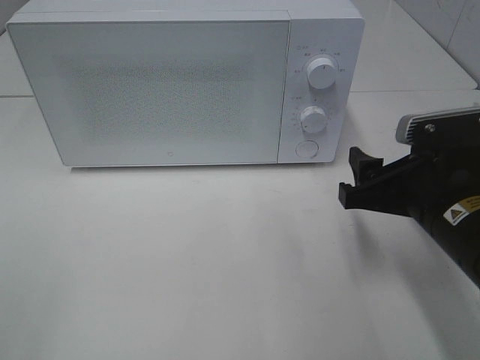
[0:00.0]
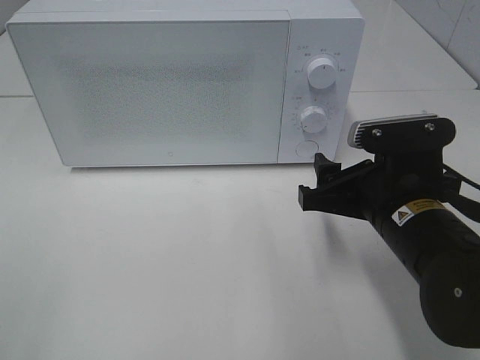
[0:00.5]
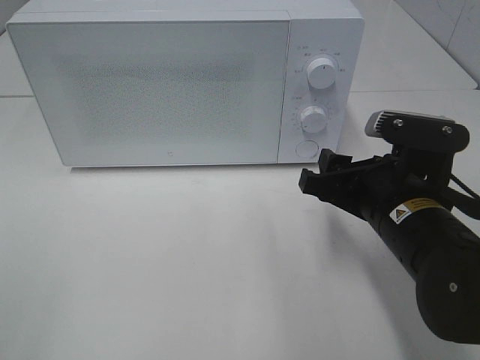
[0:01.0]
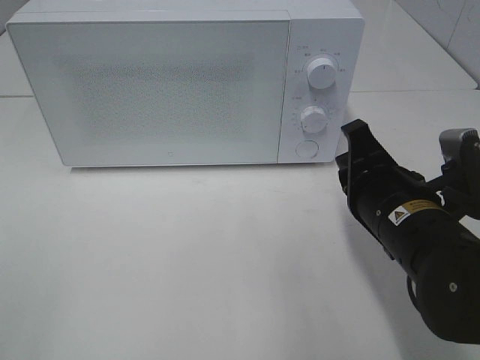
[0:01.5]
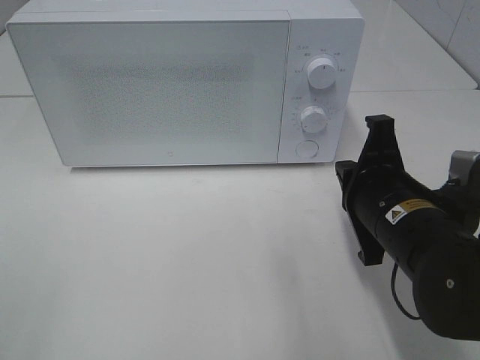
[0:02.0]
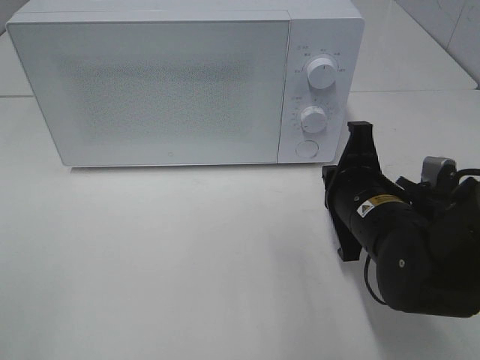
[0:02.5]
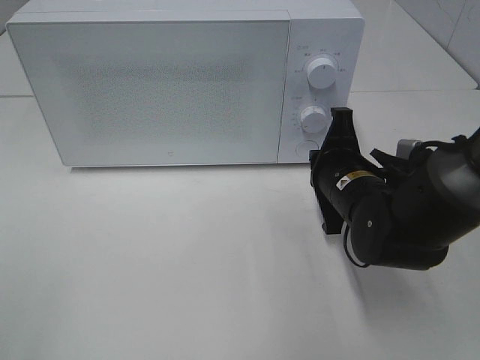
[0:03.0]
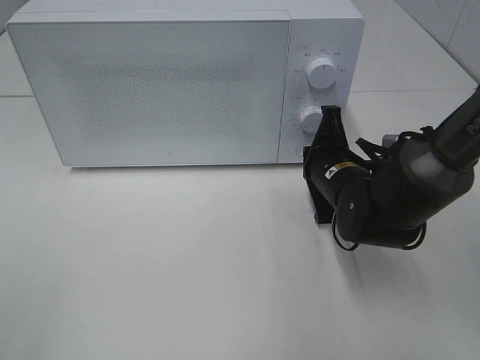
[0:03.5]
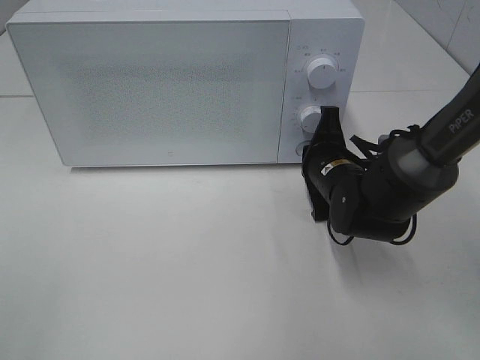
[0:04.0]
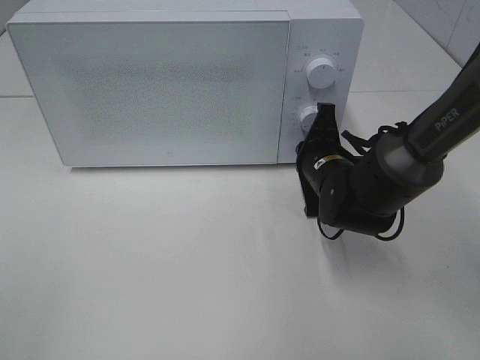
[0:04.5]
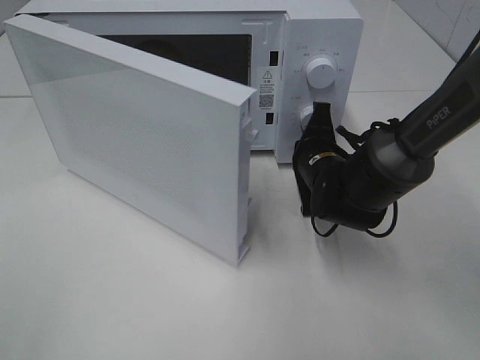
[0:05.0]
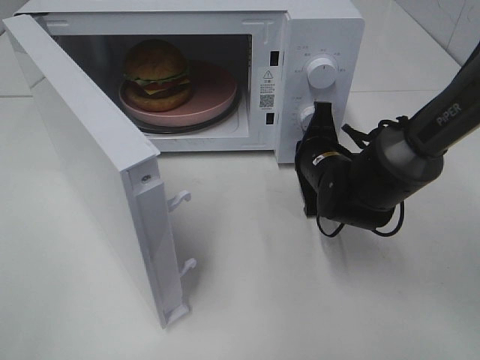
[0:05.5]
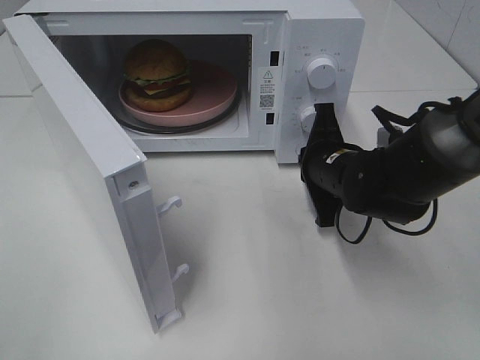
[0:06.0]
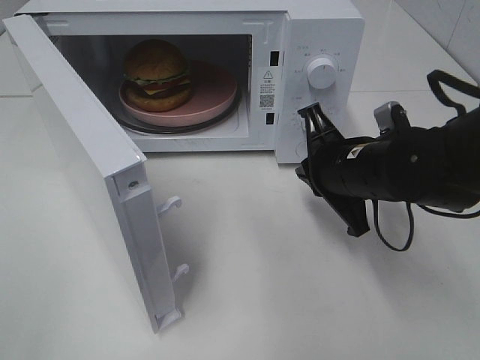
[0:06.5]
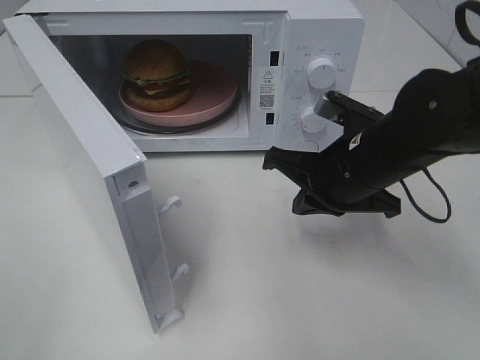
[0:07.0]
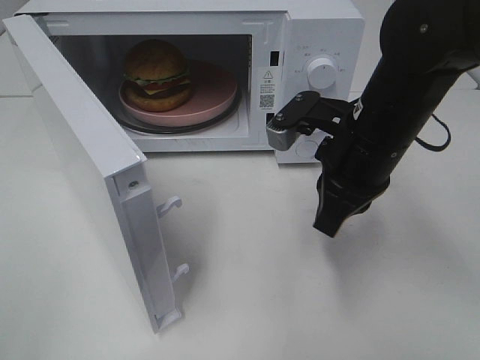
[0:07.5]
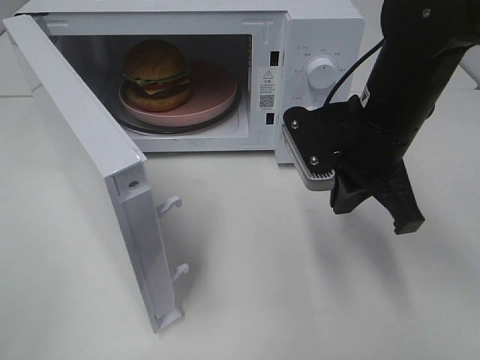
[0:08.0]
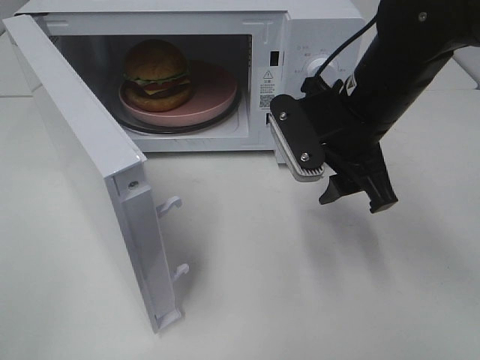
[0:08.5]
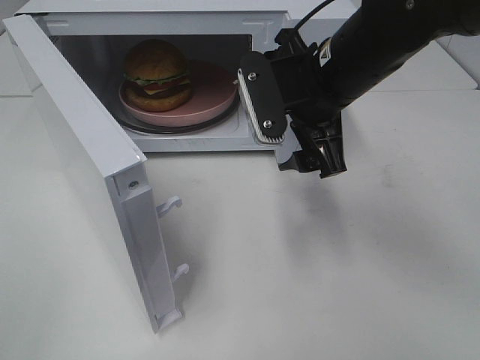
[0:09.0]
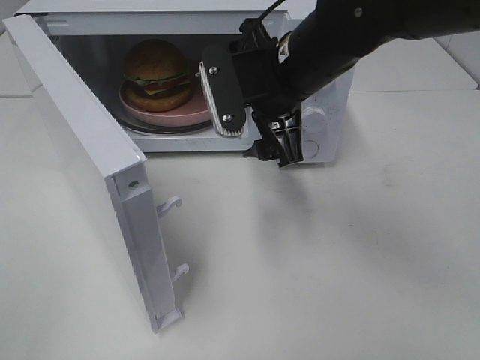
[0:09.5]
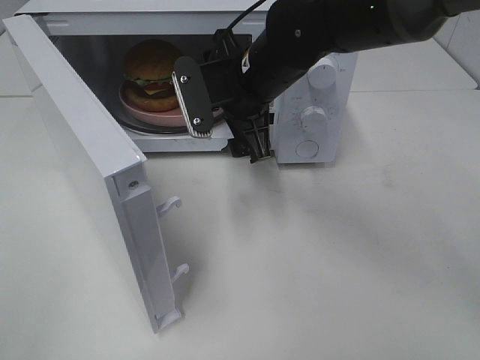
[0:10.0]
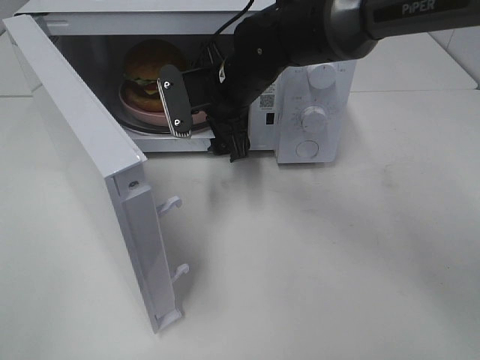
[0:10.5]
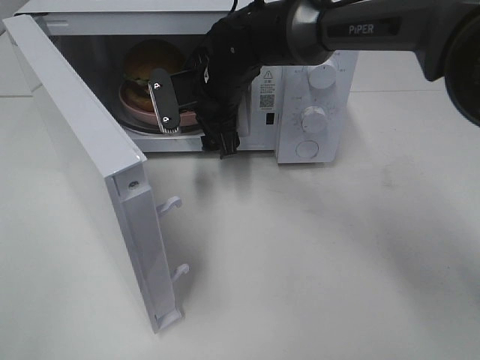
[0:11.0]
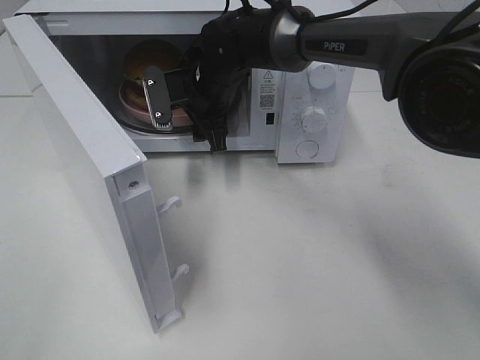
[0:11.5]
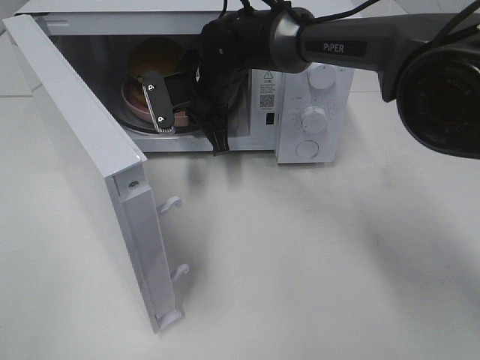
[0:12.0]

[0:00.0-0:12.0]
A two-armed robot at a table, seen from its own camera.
Task of the whole recording: Heat the burger.
Step, 0.0 to 5.5 s: Right hand: press the switch.
0.0 to 2.0 s: The right gripper closes up.
2.0 to 4.0 s: The right gripper goes roughly 15 cm forward and downward.
6.0 to 8.0 s: The right gripper moves upward, about 10 cm.
8.0 to 10.0 s: The right gripper shifts about 15 cm to the left and forward, and opens up.
10.0 to 12.0 s: The right gripper shifts about 10 cm forward, downward and to the left, and closes up.

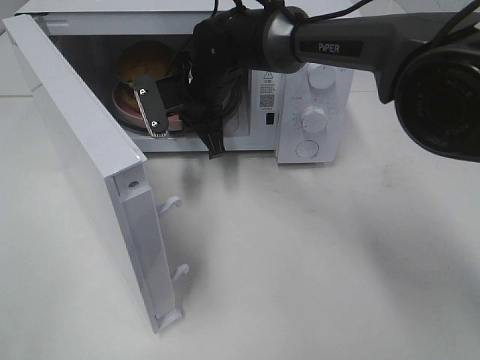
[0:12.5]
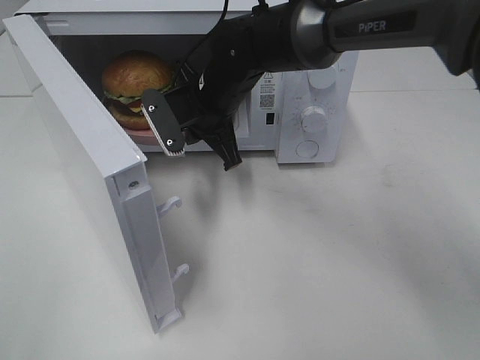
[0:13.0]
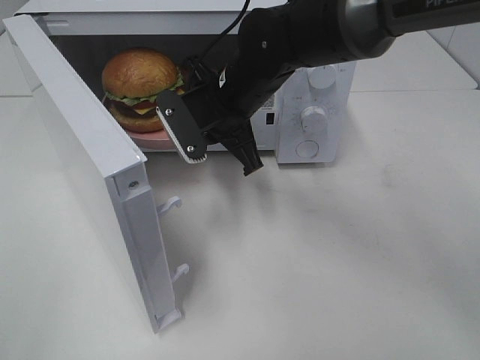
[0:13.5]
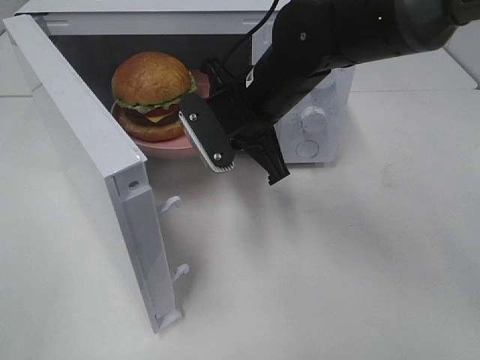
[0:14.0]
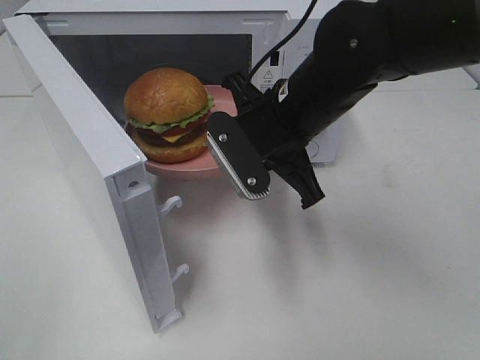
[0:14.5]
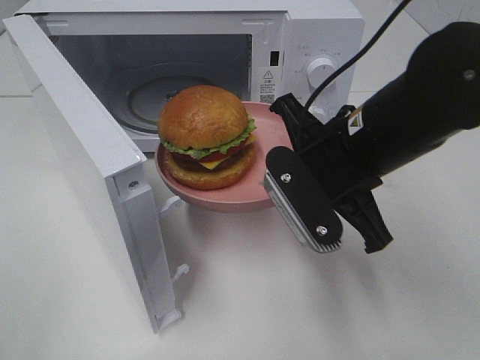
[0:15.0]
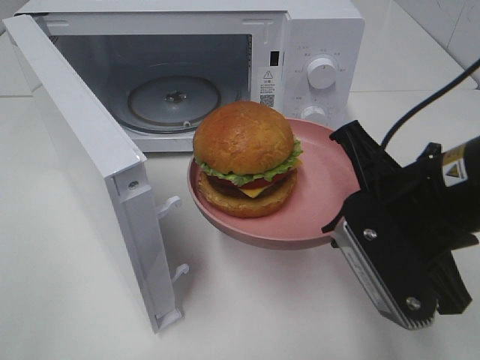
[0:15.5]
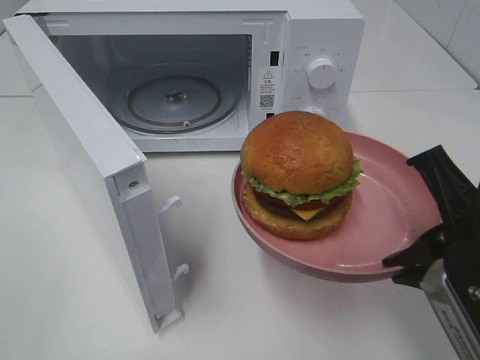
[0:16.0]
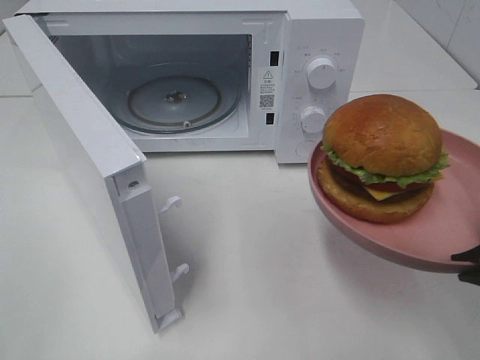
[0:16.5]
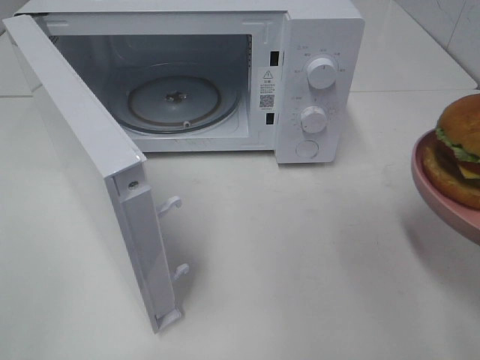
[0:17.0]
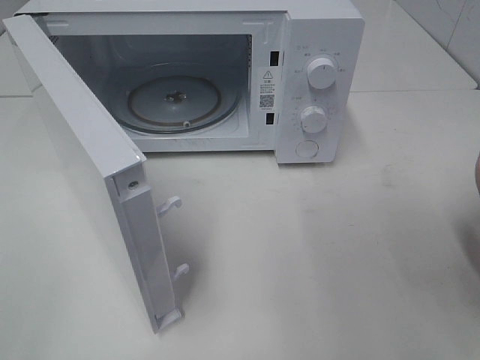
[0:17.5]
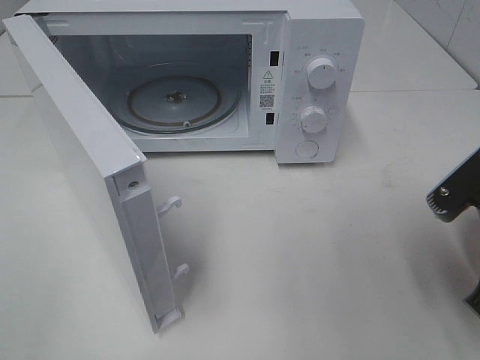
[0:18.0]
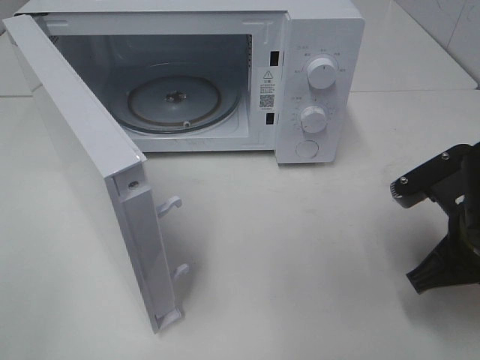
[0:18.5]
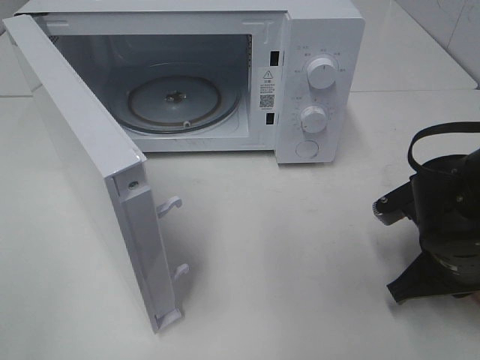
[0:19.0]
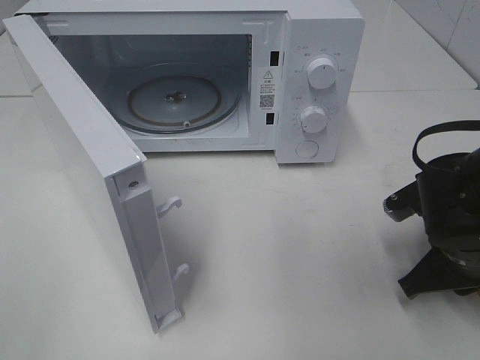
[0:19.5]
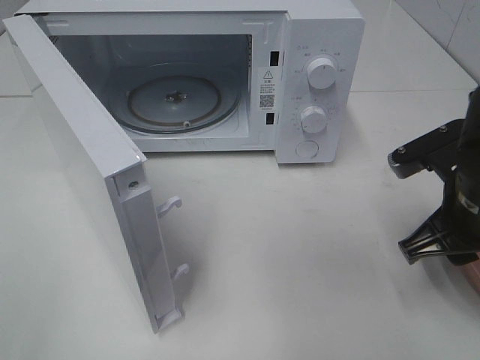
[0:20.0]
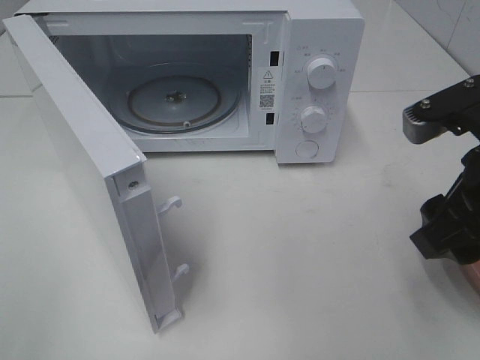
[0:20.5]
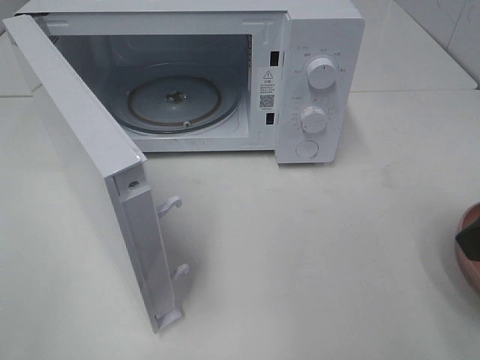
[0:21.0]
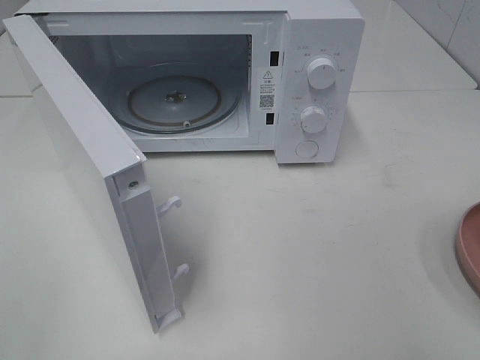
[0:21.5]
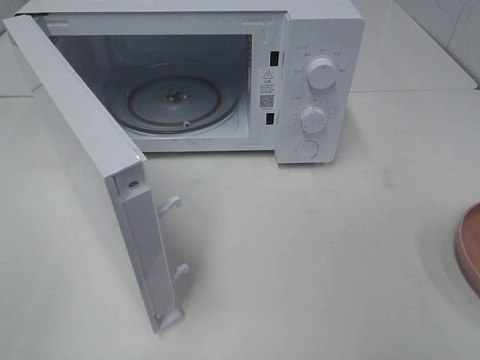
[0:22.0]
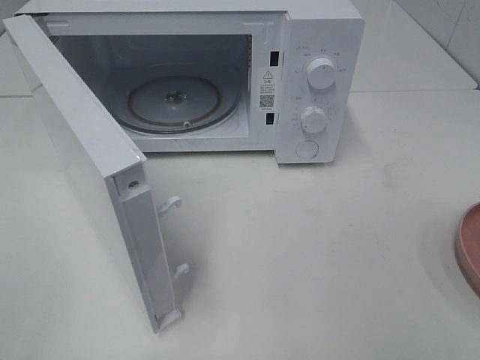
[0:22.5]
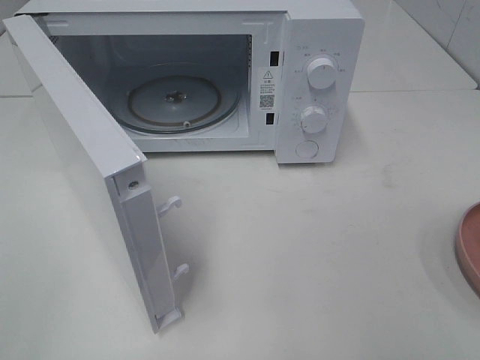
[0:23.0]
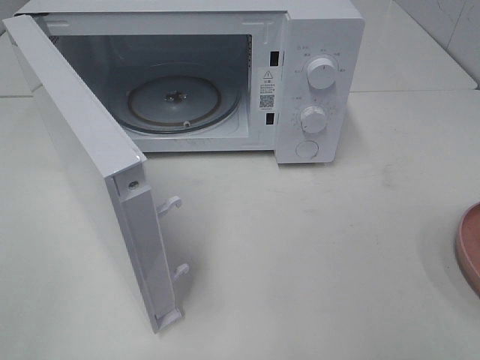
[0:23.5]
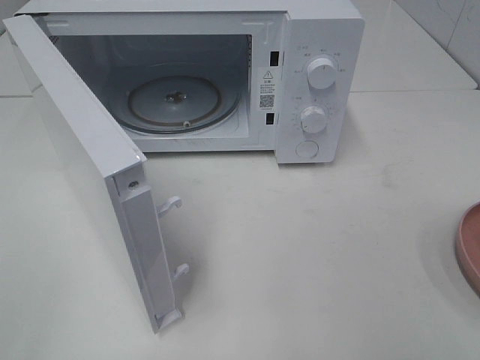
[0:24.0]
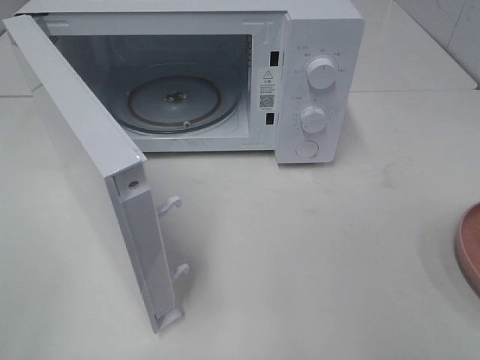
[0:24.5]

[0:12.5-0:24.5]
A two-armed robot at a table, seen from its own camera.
Task of the whole recording: Heat the burger.
Step, 12.5 to 20.0 s: Right hand: place the plate on the table.
12.5 to 14.5 s: The right gripper moves backward and to the right, approximately 15 cm.
14.5 to 16.5 s: The right gripper shifts approximately 25 cm backward and to the right.
16.5 to 18.5 s: The right gripper is displaced downward and forward by some 15 cm.
18.5 to 20.5 s: The right gripper shifts about 10 cm upward, and opens.
20.5 to 22.5 s: The right gripper moves backward and to the right, some 20 cm.
22.5 to 24.5 s: The two grippers keep their place.

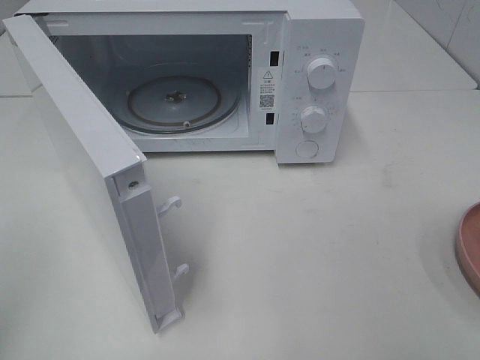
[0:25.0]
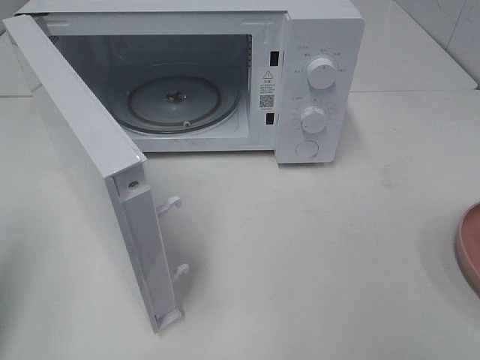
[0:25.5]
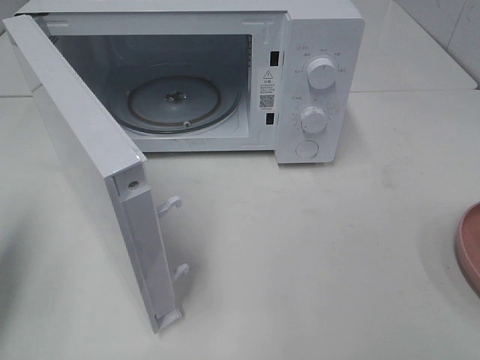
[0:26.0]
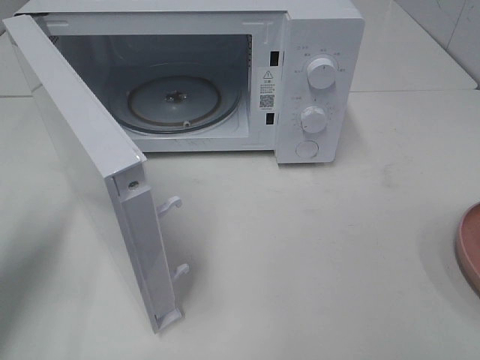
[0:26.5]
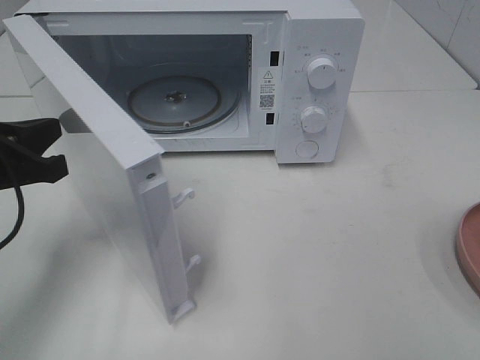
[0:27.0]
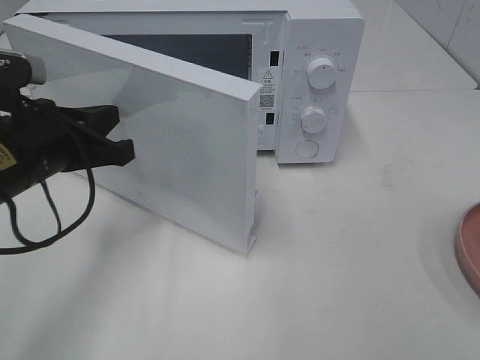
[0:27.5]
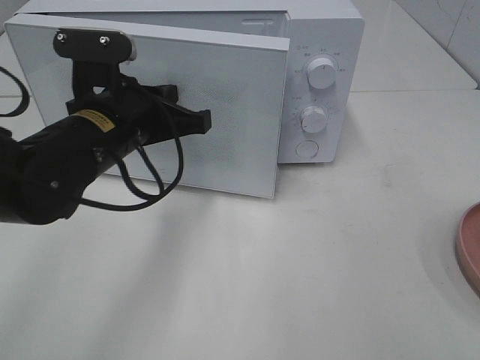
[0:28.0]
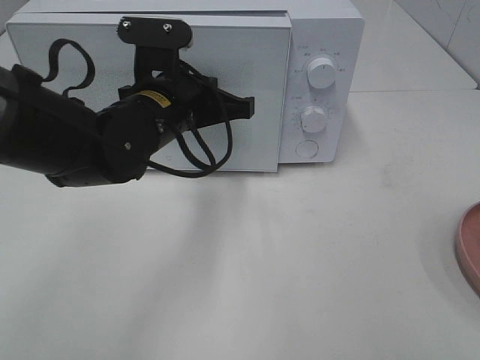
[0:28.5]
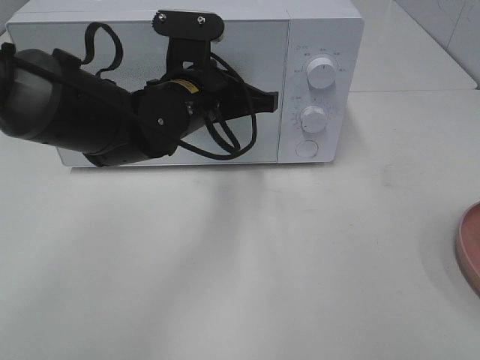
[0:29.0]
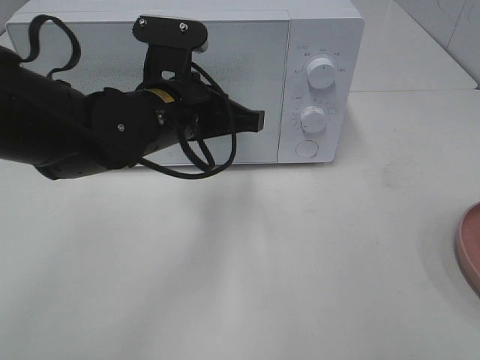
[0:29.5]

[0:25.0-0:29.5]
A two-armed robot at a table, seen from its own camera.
Task of the whole recording: Heat the burger.
25.0 to 27.0 s: The left gripper heads forward, downward and to the right, covering some 20 cm.
27.0 to 29.5 s: The left gripper travels to the right by roughly 20 cm.
